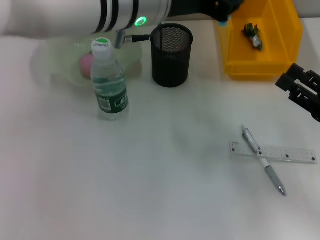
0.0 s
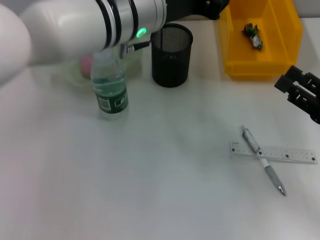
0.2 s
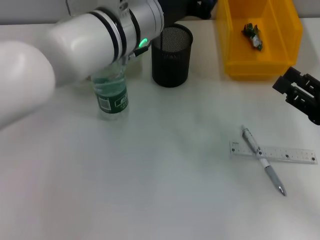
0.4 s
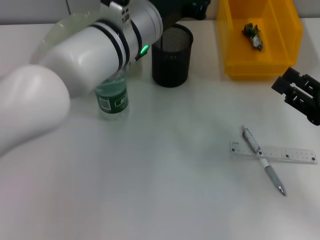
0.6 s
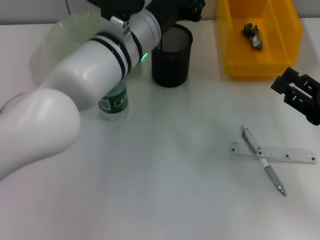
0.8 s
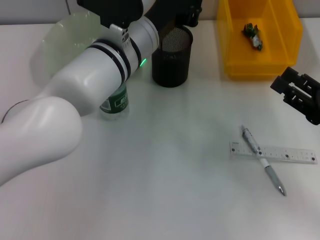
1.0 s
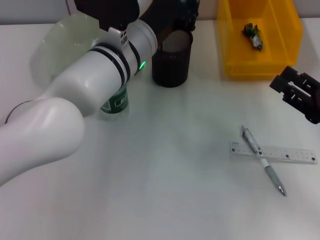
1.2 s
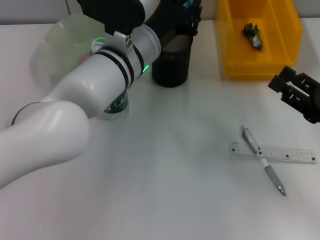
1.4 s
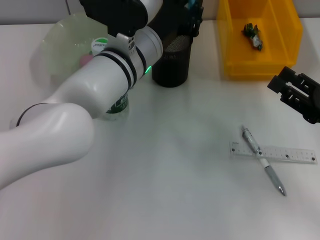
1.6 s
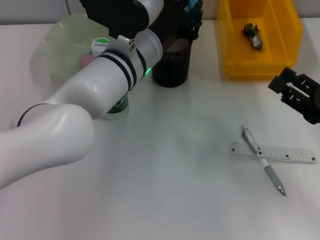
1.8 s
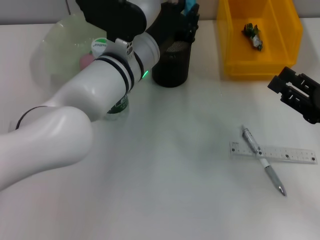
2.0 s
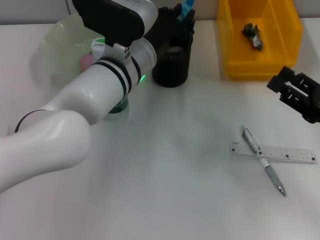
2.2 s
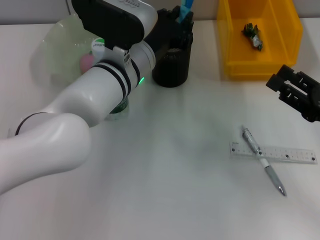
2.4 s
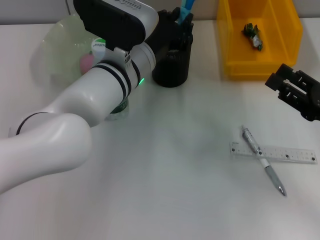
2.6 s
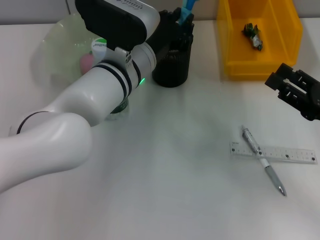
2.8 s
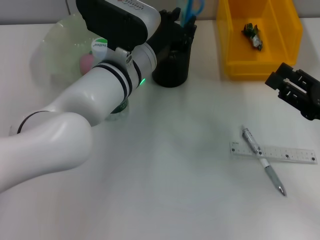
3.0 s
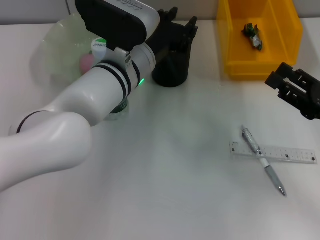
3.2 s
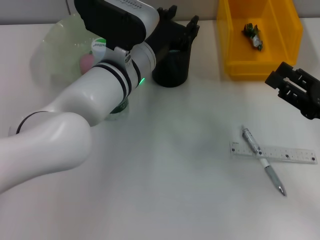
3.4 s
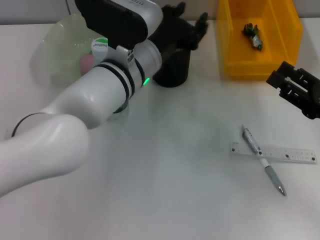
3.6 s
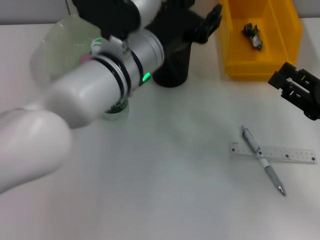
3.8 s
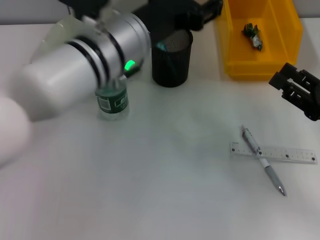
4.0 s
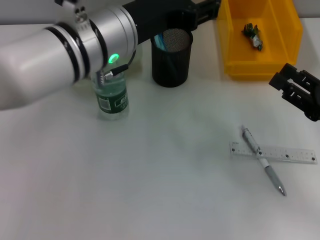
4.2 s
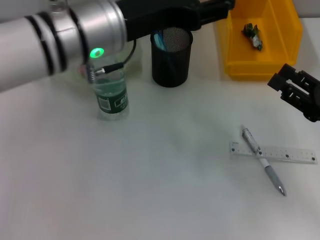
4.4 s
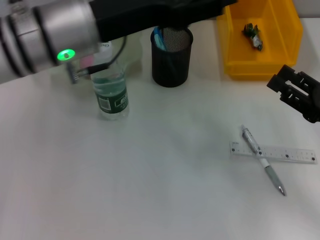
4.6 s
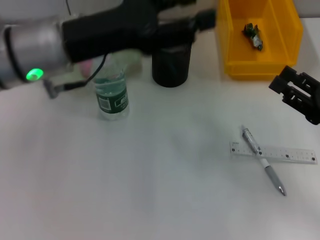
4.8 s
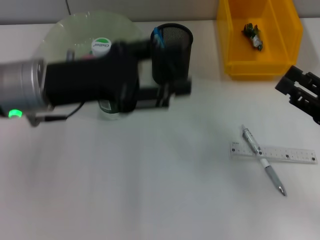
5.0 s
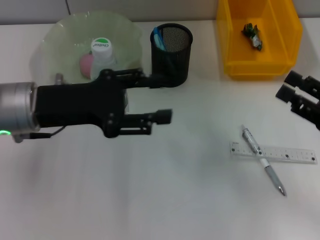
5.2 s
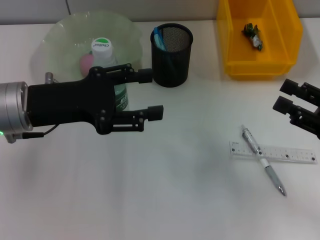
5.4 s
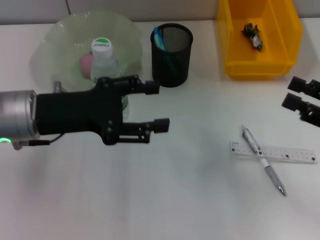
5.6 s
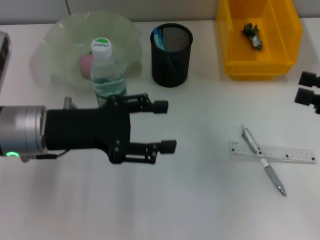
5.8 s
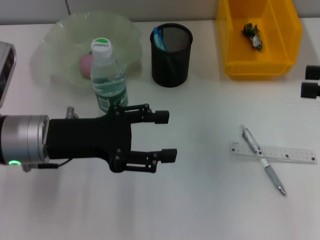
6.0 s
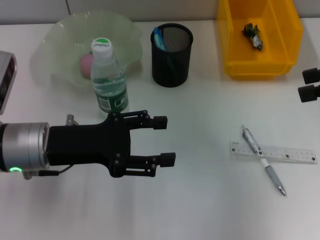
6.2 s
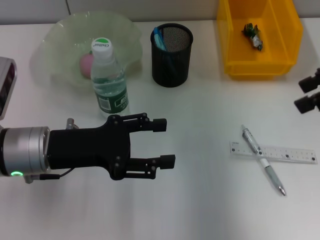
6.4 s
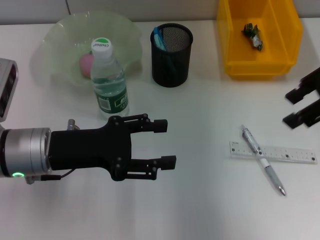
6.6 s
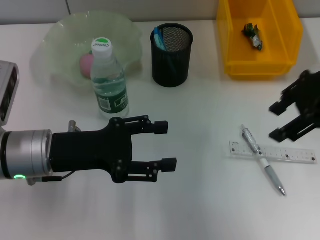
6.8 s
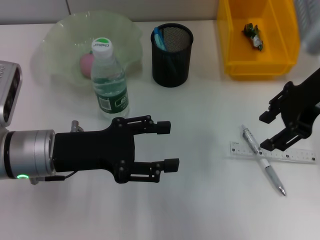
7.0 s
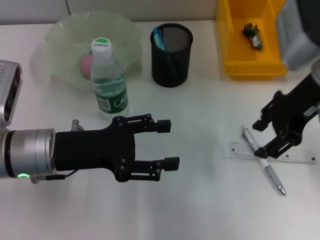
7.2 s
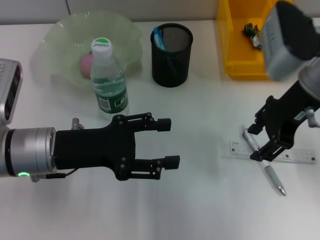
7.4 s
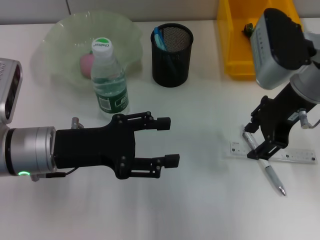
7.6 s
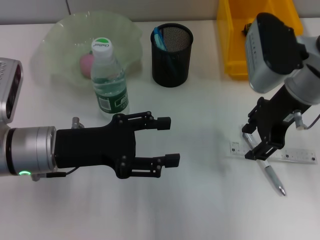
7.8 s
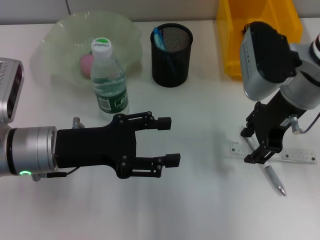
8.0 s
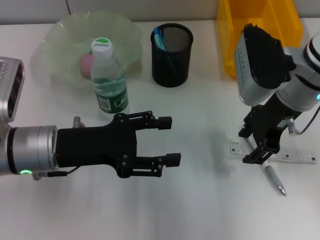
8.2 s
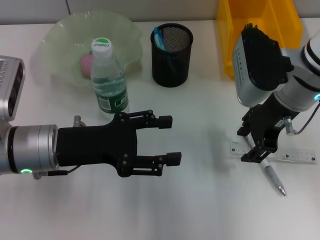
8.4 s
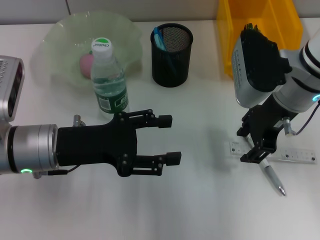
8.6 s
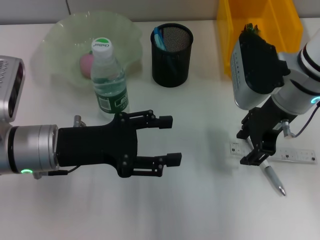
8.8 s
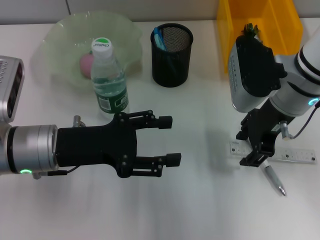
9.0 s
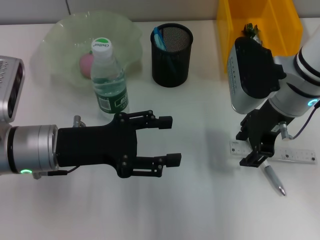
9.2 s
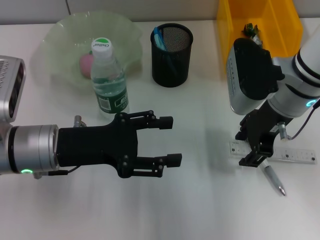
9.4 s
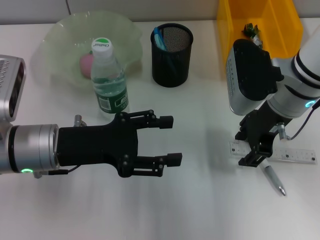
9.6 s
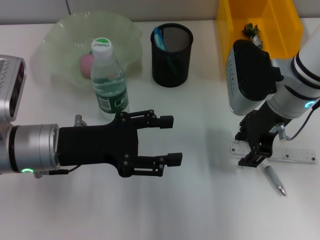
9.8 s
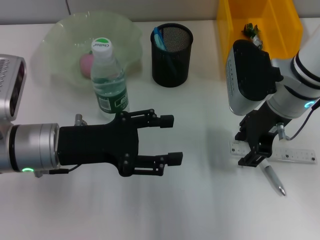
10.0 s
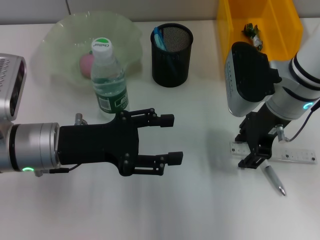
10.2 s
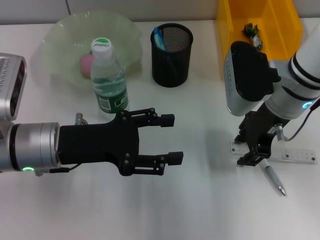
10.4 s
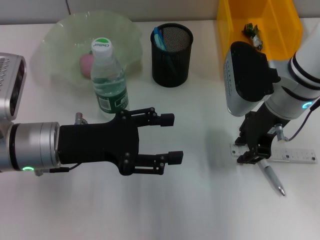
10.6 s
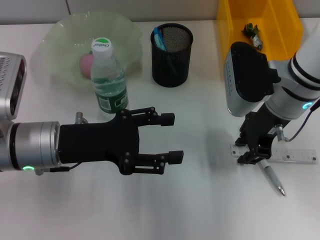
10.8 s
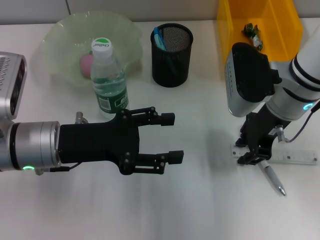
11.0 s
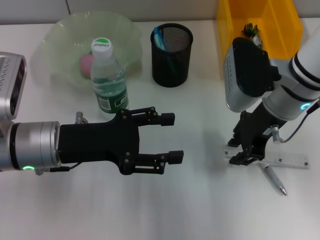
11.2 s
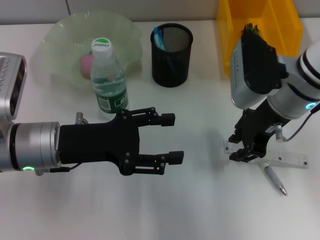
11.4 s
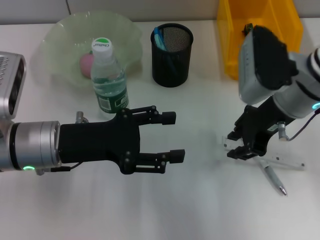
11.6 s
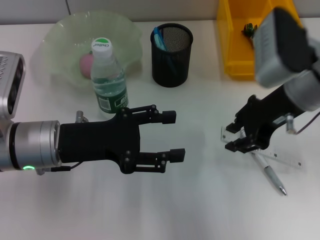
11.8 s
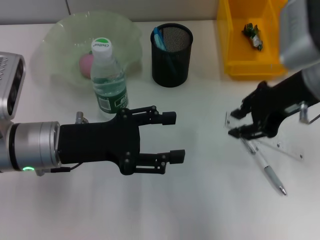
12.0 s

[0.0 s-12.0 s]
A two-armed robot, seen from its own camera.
Step, 0.0 to 3.6 s: Place the blue scissors into the pen holder with the left hand.
Step, 4.0 to 10.8 s: Grab the ruler with the right hand.
0.0 to 1.6 s: The left gripper heads downward, covering about 10 cm.
1.6 to 3.0 s: The grippers move only a little.
3.0 to 4.4 s: The left gripper heads upward, covering about 10 cm, and opens its fingers.
4.4 to 6.0 s: The left gripper moves downward and to the left, approximately 15 cm. The right gripper heads upward, covering roughly 15 cm.
6.0 to 7.6 s: The right gripper shifts about 20 cm to the left and forward.
7.6 to 9.0 s: The grippers make only small movements.
9.0 to 10.4 s: Both grippers stay about where they are.
10.4 to 12.0 s: The right gripper travels upward by approximately 5 cm.

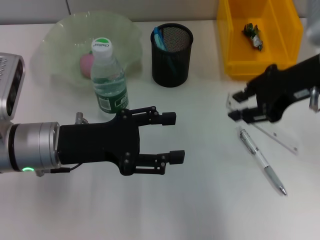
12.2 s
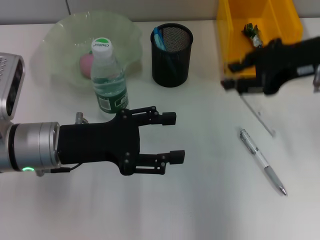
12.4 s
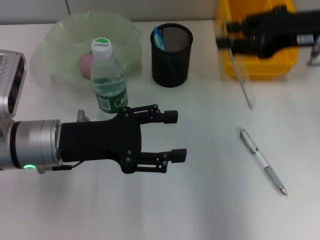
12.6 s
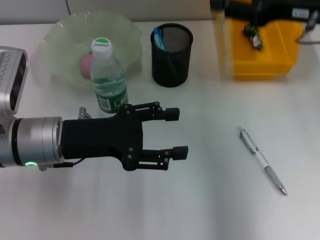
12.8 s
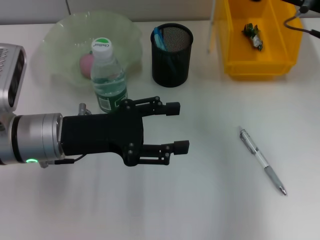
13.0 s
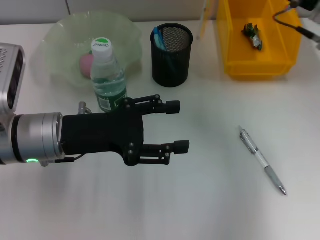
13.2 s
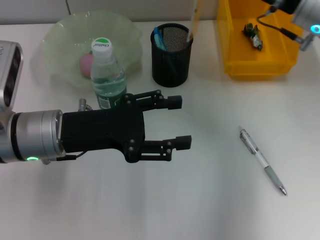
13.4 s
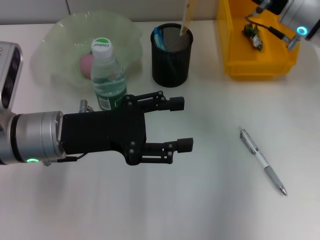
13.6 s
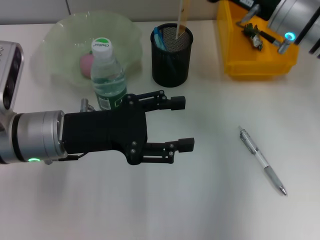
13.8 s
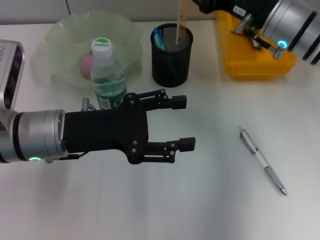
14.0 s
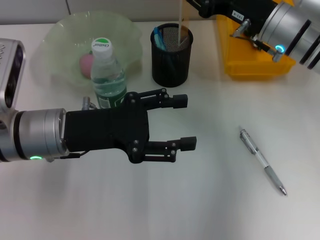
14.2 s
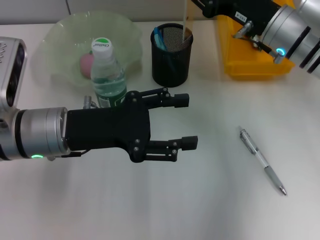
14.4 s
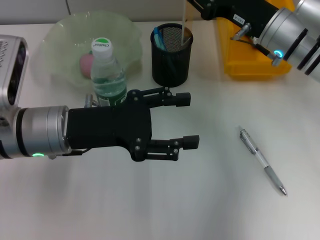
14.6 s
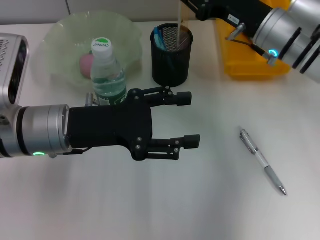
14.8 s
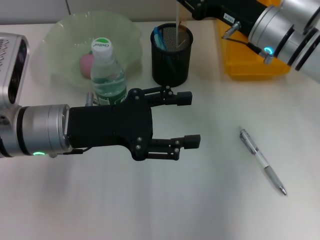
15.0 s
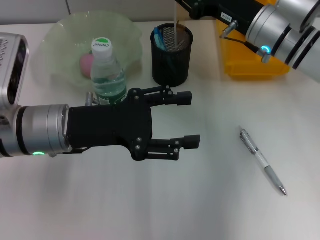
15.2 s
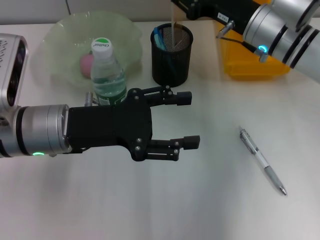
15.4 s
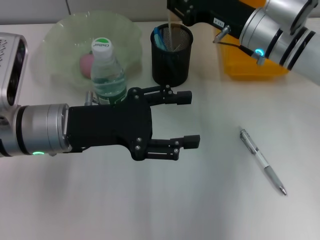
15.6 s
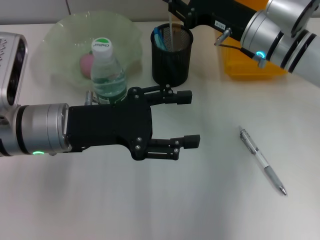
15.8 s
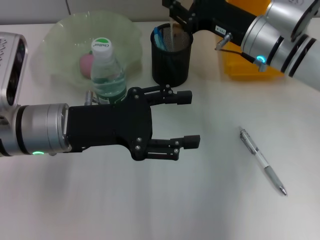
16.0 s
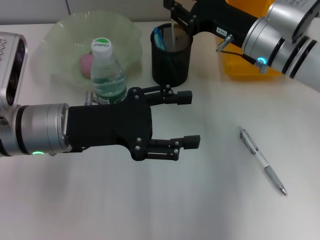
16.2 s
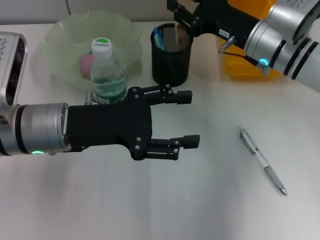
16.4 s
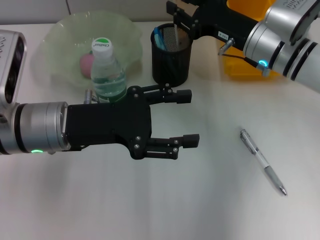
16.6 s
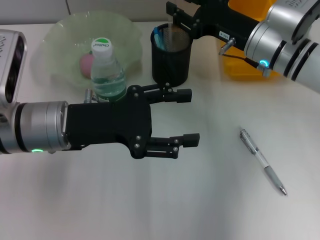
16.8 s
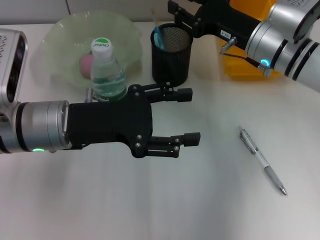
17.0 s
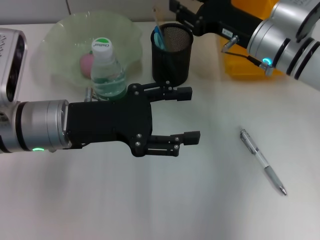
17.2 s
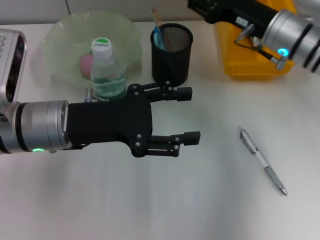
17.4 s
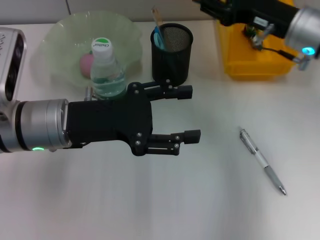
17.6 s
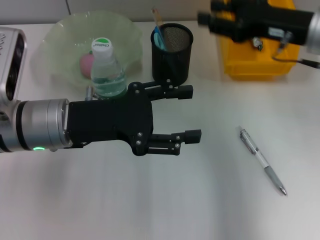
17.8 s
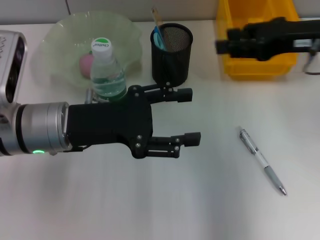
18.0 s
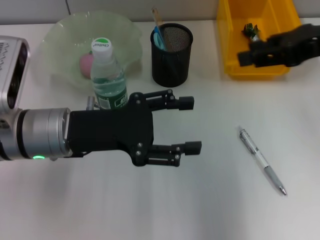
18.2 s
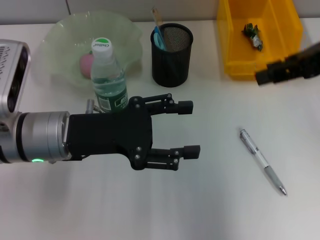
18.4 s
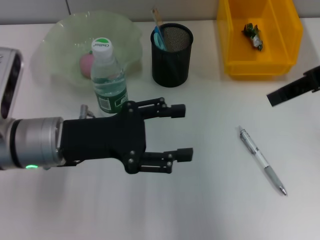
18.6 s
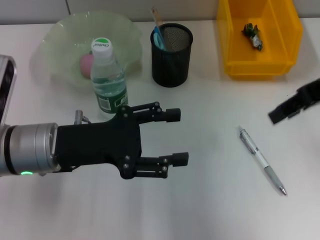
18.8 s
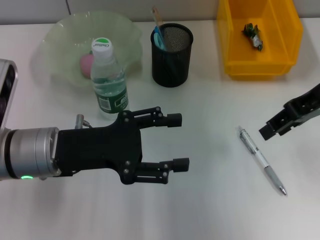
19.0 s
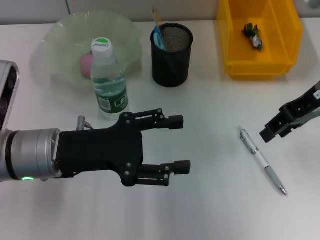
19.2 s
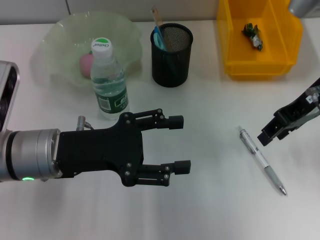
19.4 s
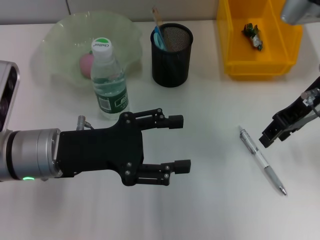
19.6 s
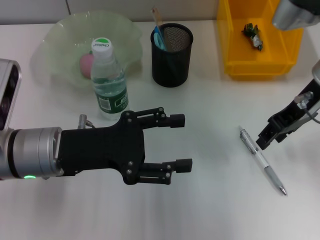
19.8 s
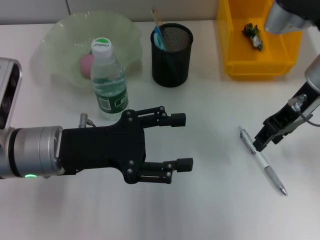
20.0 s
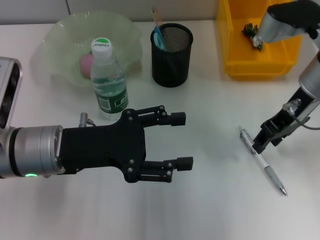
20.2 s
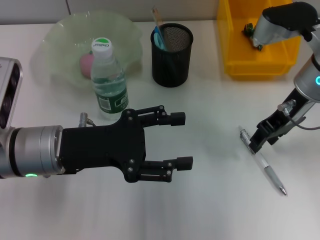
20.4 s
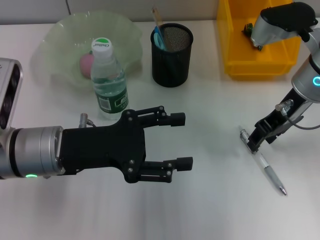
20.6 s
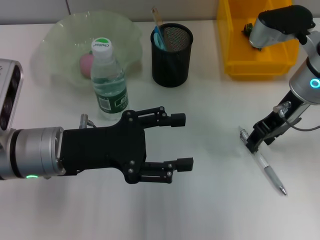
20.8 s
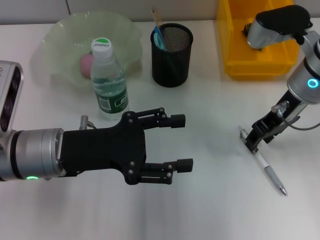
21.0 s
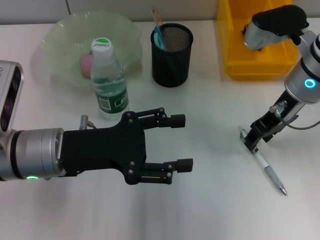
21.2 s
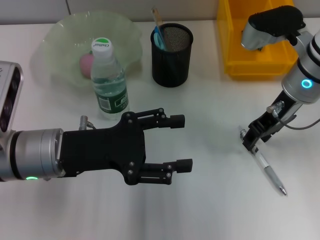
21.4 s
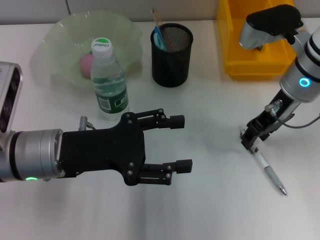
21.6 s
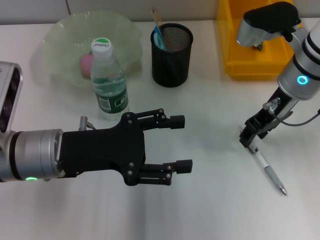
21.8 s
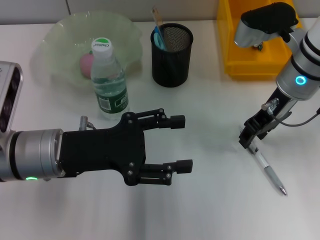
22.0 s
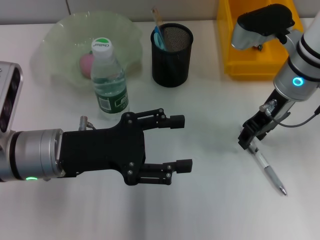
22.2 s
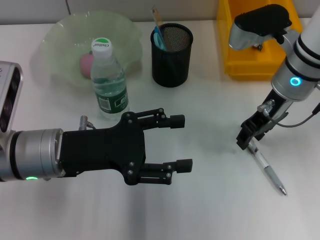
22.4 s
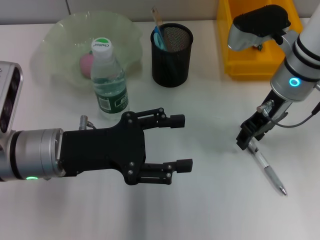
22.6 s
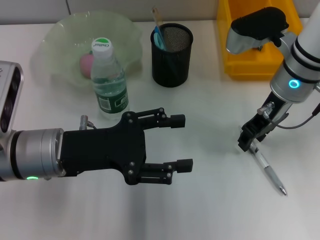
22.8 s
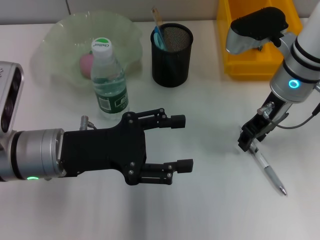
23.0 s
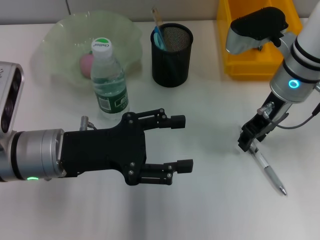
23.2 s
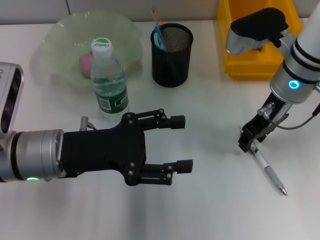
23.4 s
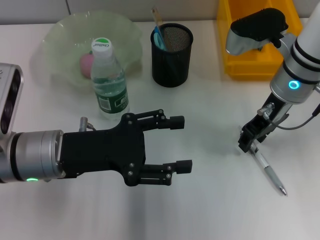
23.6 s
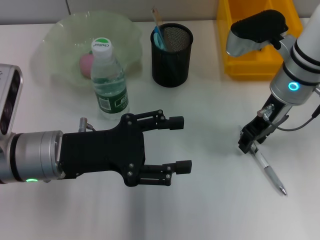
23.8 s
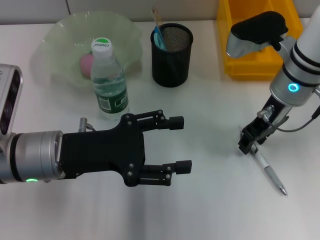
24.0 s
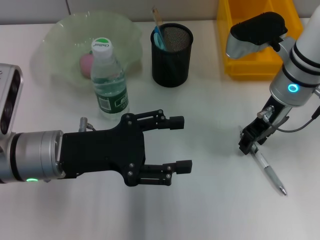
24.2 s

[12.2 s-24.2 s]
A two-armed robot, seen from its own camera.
Step, 12.2 to 17.2 s: Place the ruler into the pen holder with the right hand.
12.2 to 13.8 s: The right gripper moves forward and downward, about 10 cm.
13.8 to 16.6 s: The grippers make only small movements.
16.6 to 18.2 s: The right gripper travels upward, to the right and backward by some 20 cm.
18.2 to 19.8 s: The right gripper goes about 5 cm downward.
19.8 to 21.2 s: There are only small adjustments of the grippers.
21.2 to 22.6 s: The grippers move only a little.
22.6 to 24.2 s: Both grippers stay about where they are.
